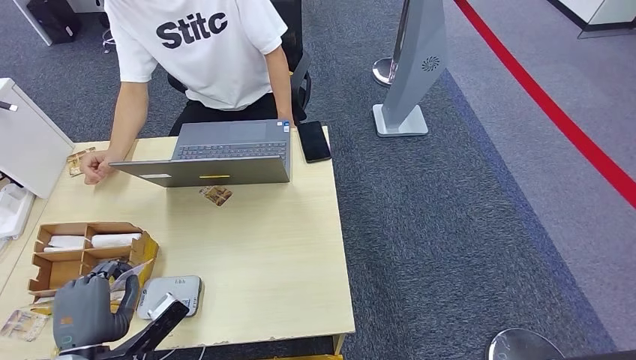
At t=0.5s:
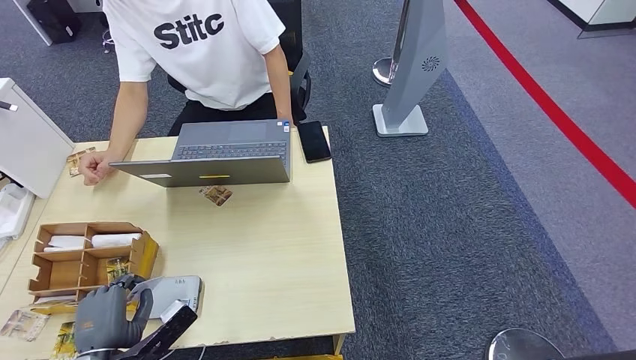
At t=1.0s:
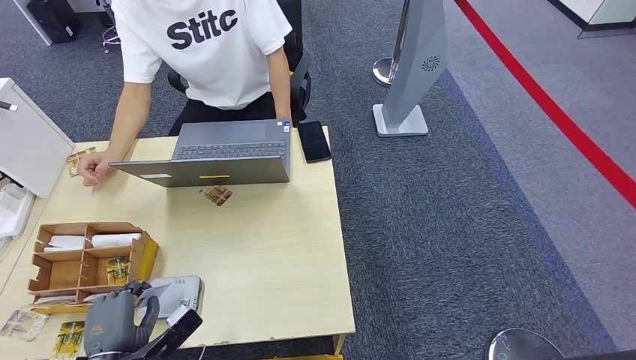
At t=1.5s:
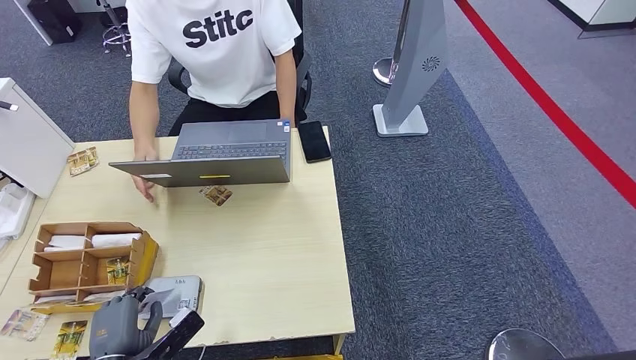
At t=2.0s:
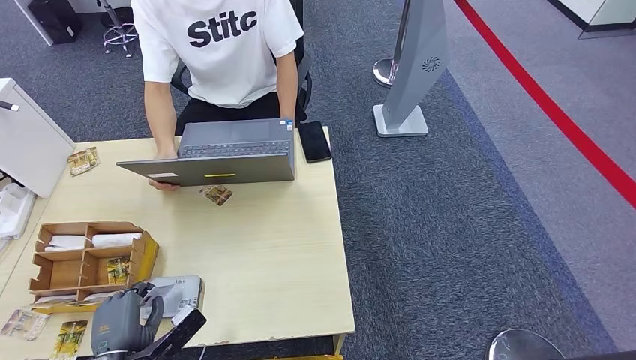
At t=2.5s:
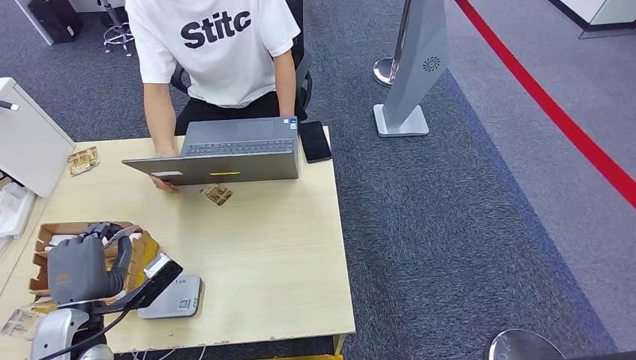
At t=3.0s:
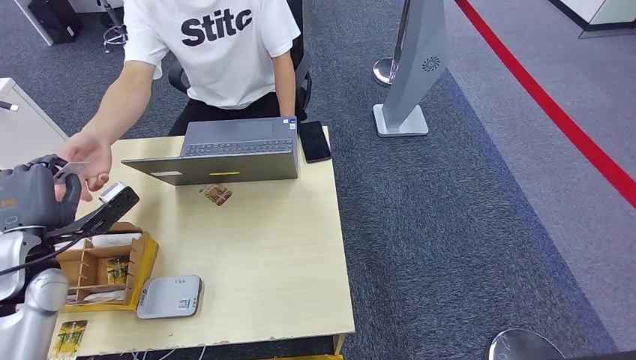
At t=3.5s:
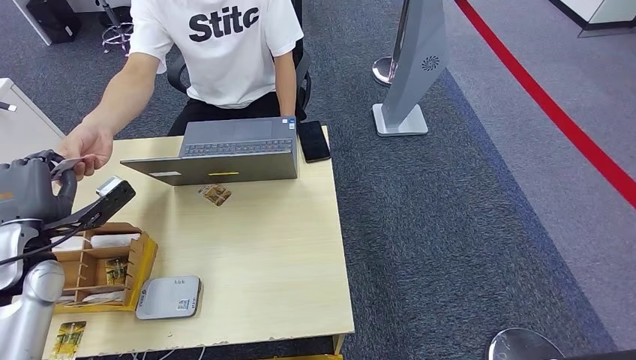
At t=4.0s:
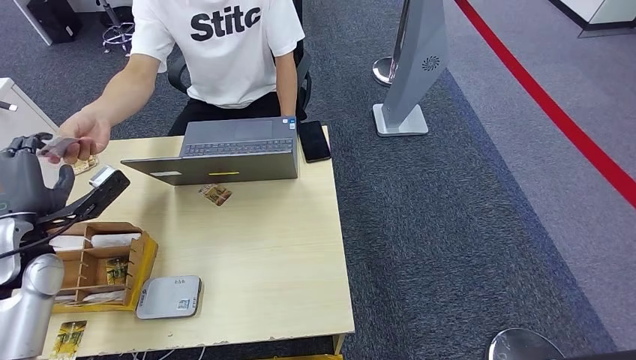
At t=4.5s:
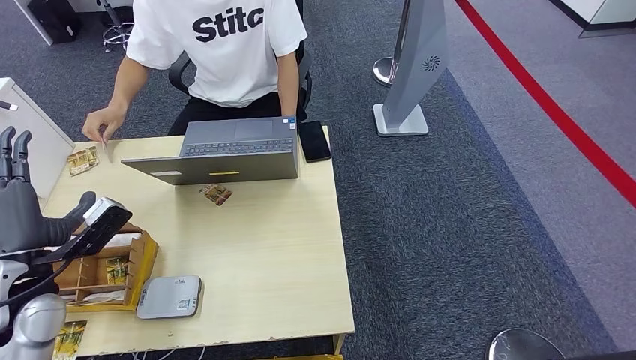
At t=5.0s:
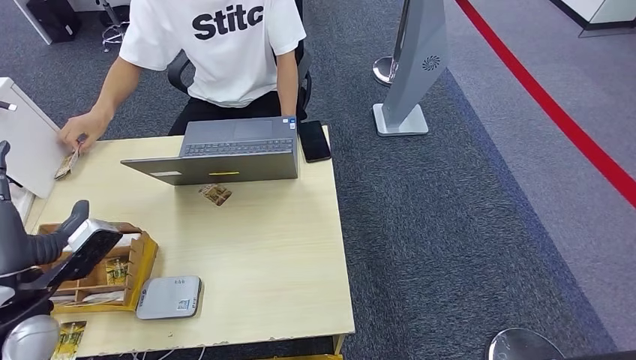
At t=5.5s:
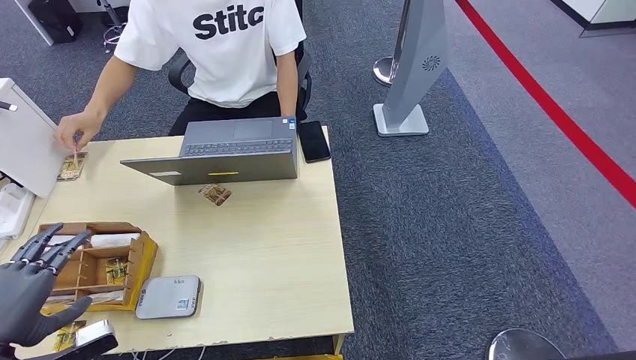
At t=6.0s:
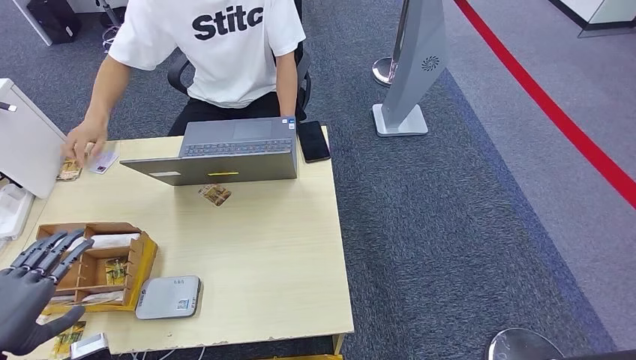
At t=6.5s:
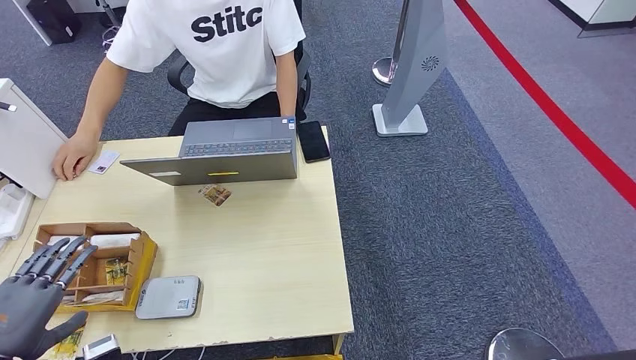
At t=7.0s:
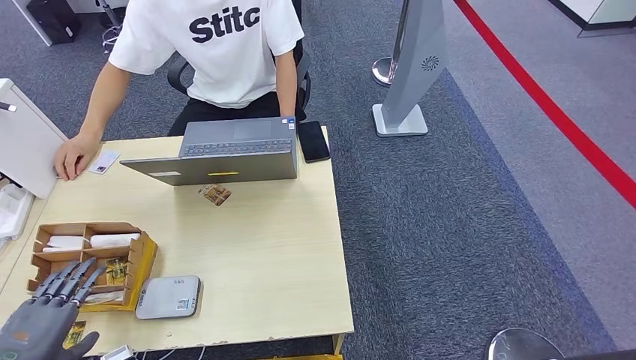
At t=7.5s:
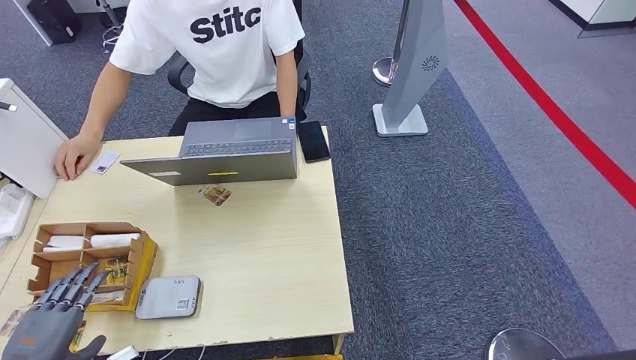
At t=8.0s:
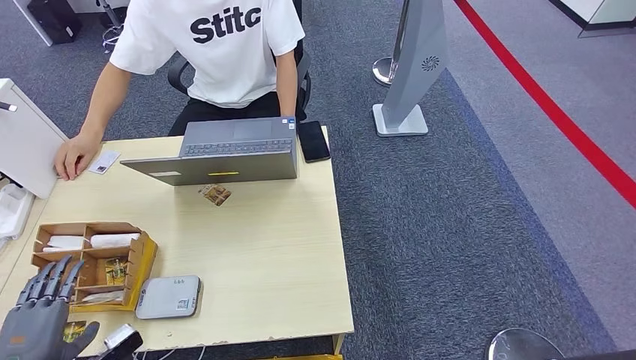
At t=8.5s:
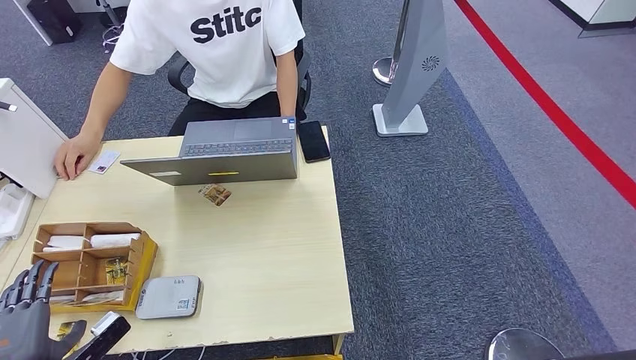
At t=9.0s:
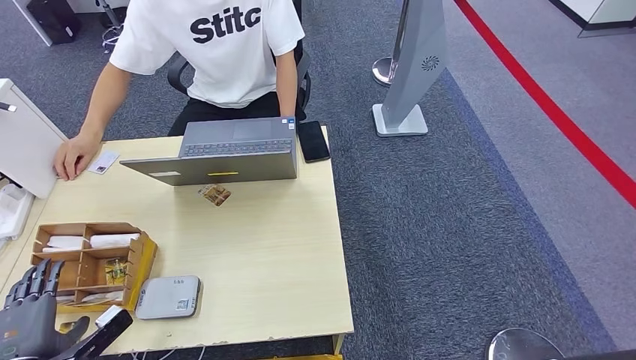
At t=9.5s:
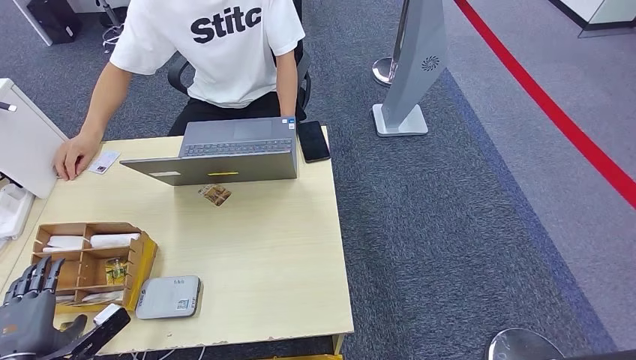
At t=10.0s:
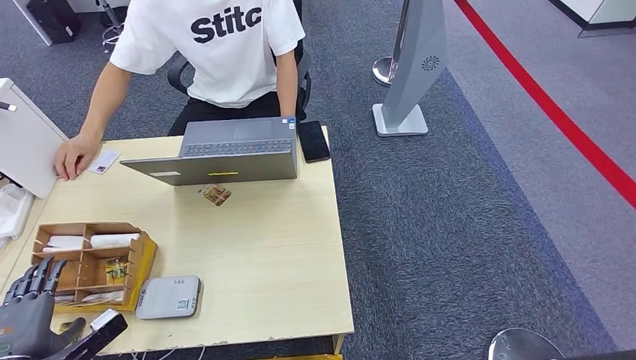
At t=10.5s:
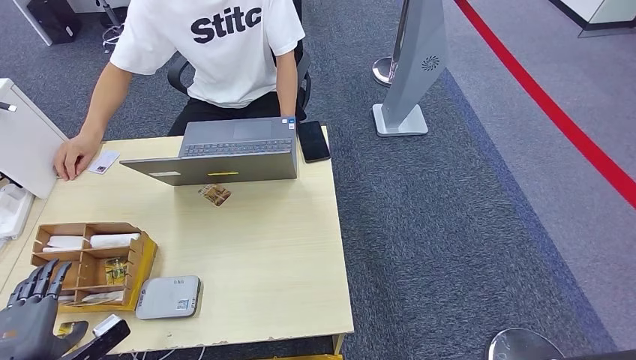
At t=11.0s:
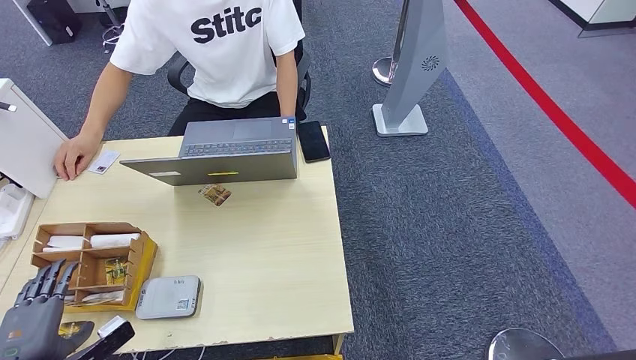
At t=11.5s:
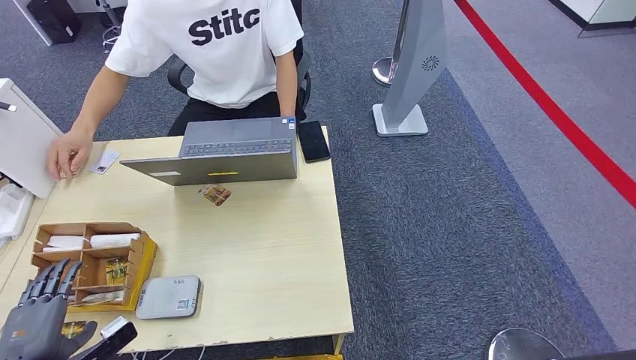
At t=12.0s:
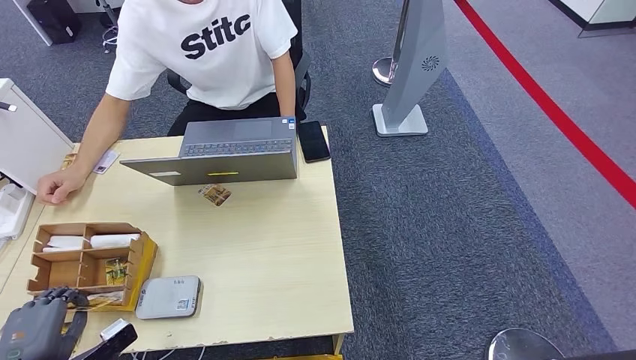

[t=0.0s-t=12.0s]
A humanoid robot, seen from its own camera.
Step, t=0.0s to t=1.5s: Place the ID card on the card reader.
Step, t=2.0s to t=4.5s: Hand the ID card to the person.
t=0.0s to t=2.0s: The left hand is displaced downward by approximately 5 cm.
t=2.0s to t=4.0s: The left hand travels upward, forward and to the left by roughly 25 cm.
t=4.0s to t=6.0s: The left hand is displaced backward by approximately 15 cm.
t=6.0s to t=8.0s: The left hand goes approximately 10 cm downward.
t=8.0s to t=10.0s: The left hand shifts by some 5 cm.
t=10.0s to t=12.0s: There are only small adjustments of the hands.

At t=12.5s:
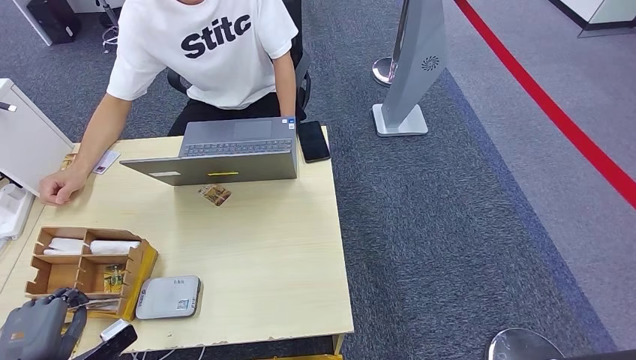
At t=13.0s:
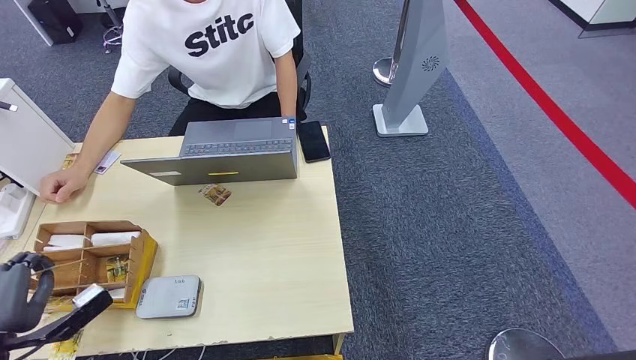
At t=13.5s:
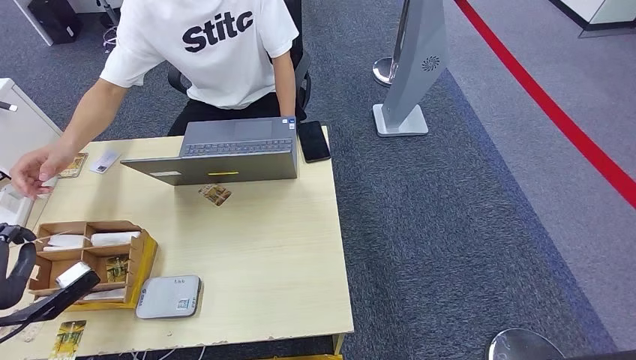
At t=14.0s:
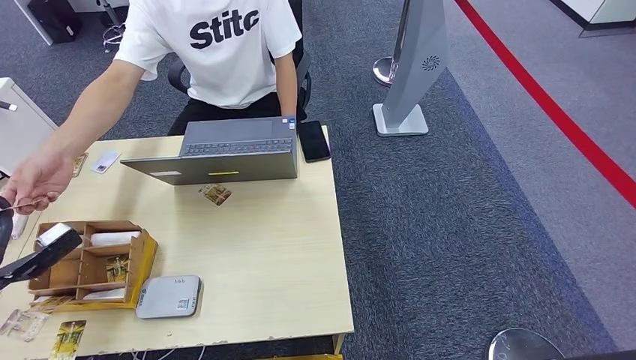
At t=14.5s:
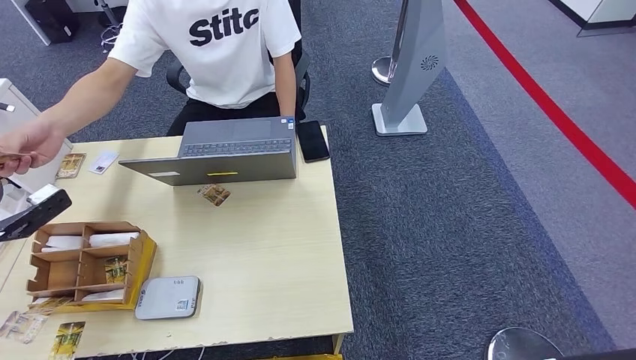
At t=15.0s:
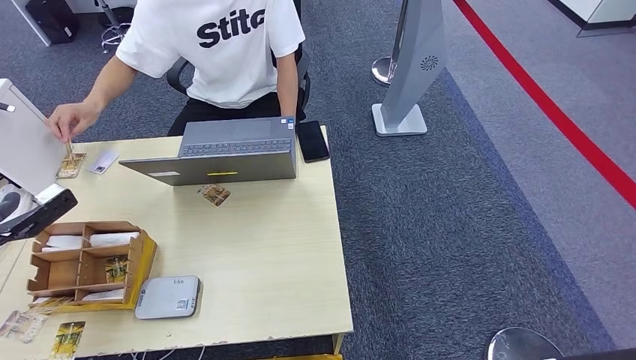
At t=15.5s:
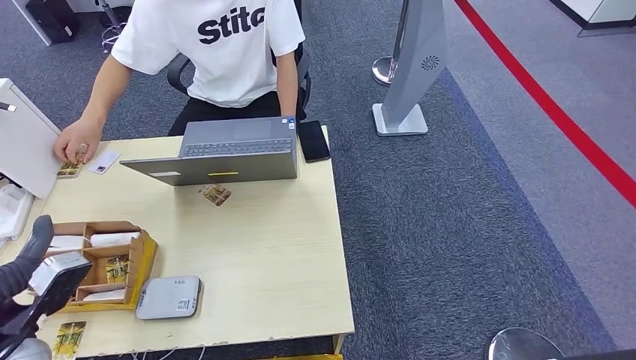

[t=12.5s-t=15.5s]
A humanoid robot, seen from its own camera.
Step, t=13.0s to t=15.5s: Hand the room key to the person.
t=12.5s to t=14.0s: The left hand heads upward and forward, covering about 15 cm.
t=14.0s to t=15.5s: The left hand shifts about 10 cm to the right.
